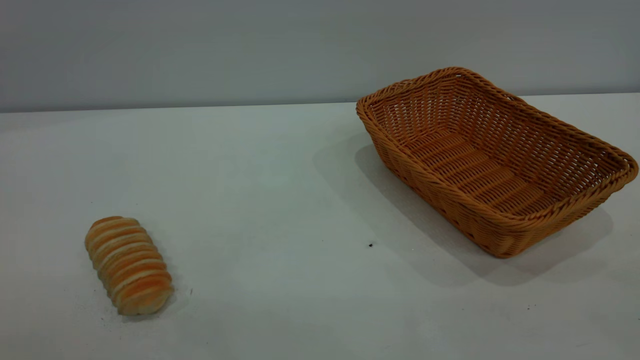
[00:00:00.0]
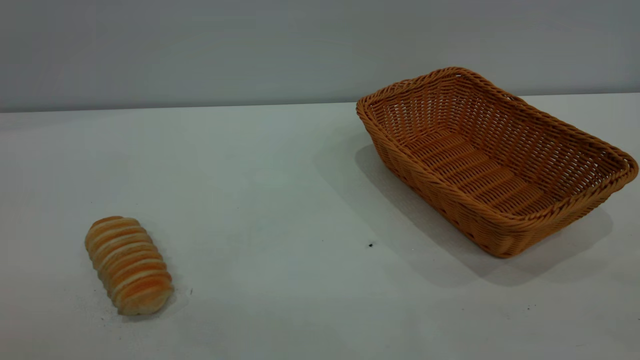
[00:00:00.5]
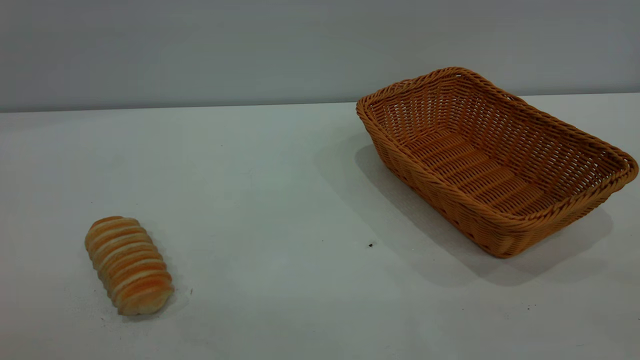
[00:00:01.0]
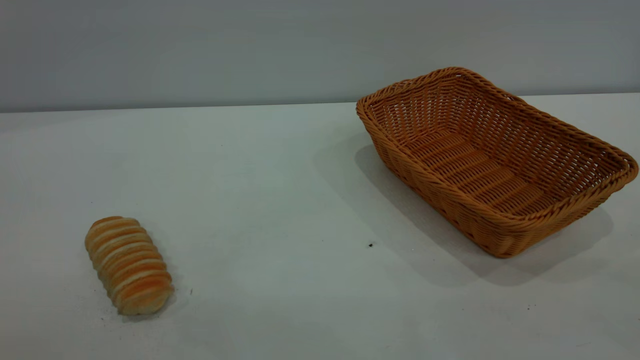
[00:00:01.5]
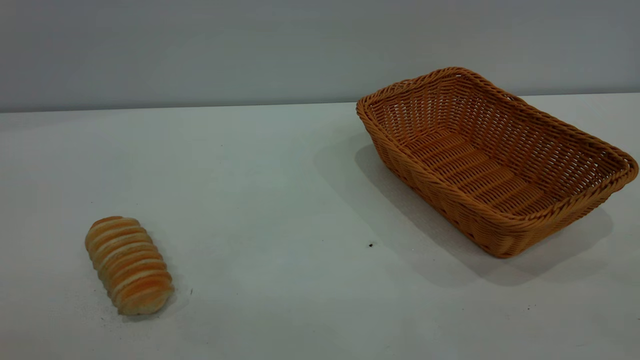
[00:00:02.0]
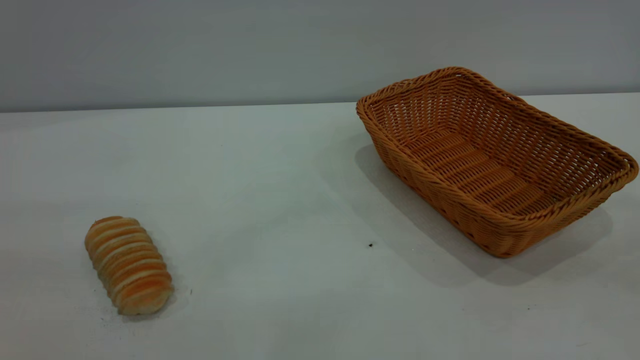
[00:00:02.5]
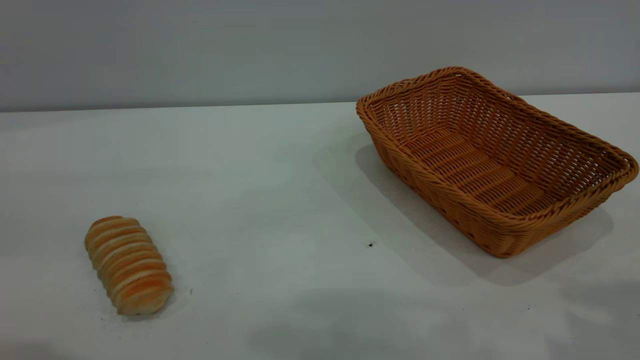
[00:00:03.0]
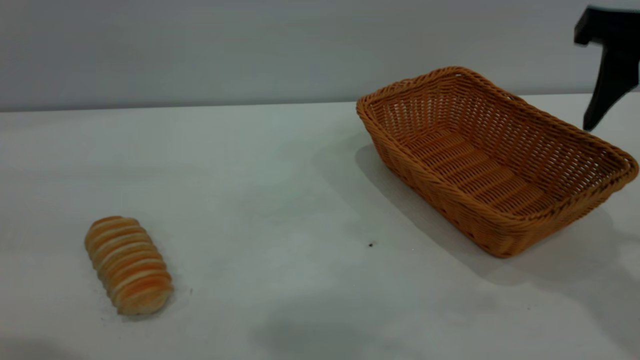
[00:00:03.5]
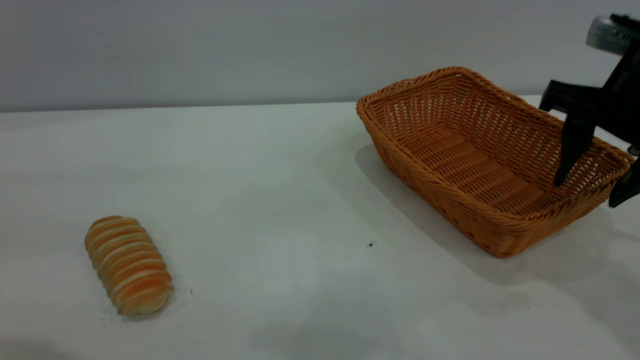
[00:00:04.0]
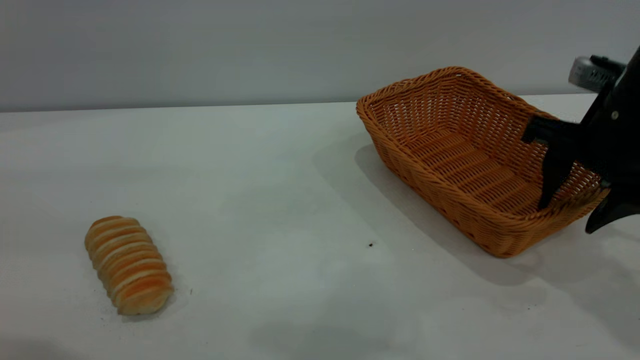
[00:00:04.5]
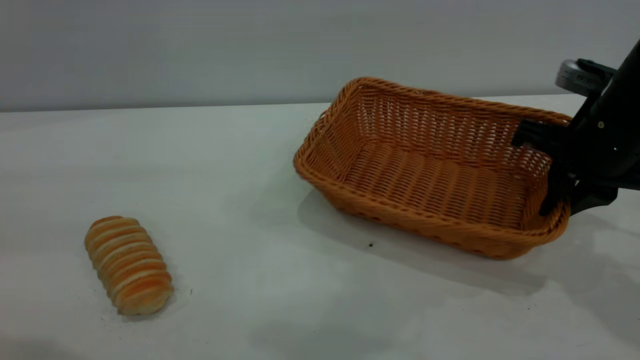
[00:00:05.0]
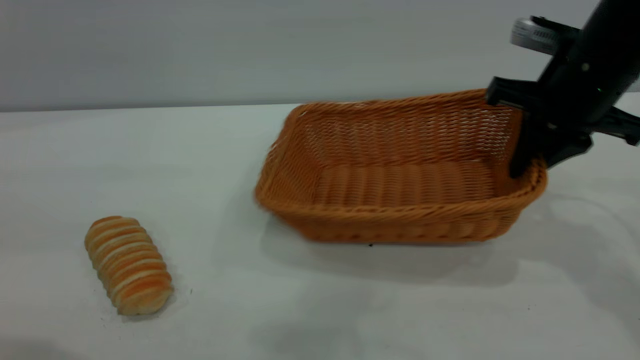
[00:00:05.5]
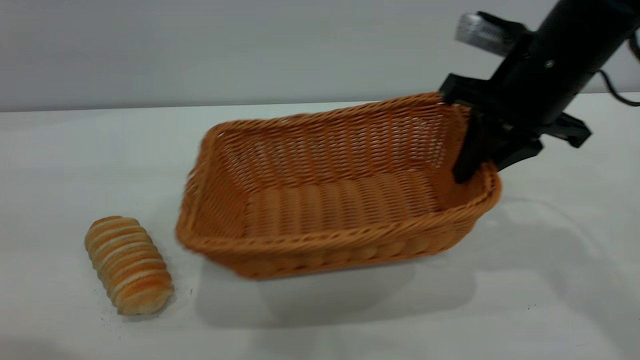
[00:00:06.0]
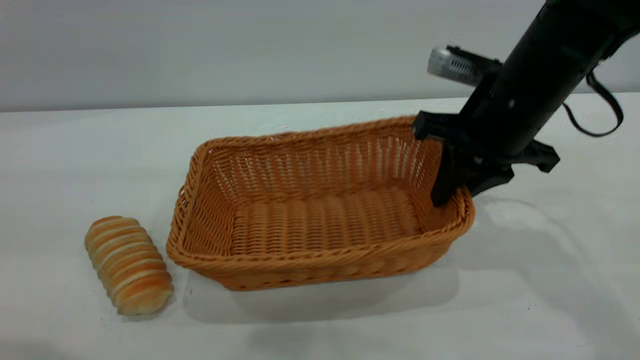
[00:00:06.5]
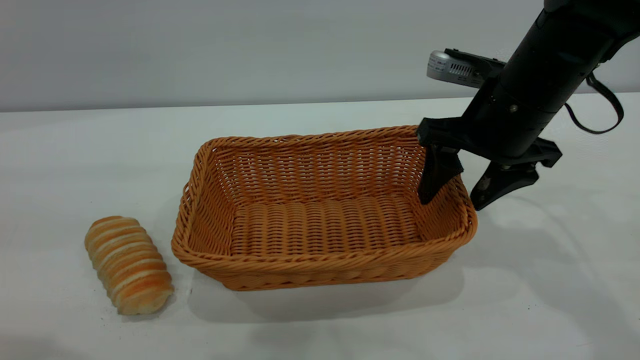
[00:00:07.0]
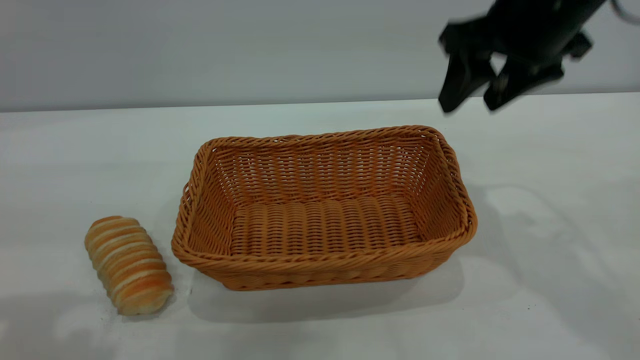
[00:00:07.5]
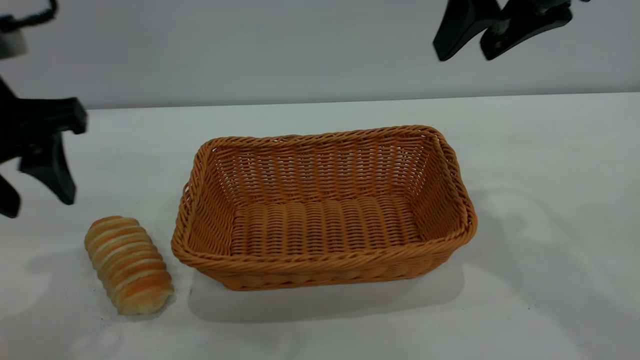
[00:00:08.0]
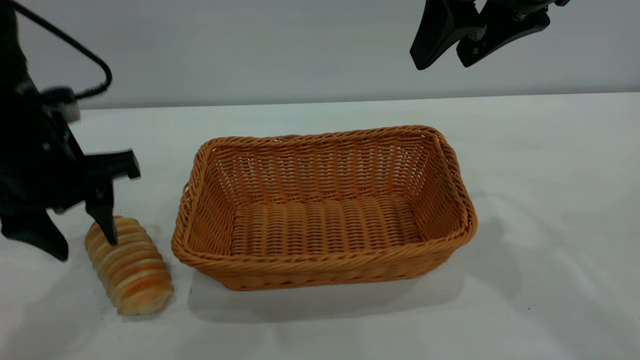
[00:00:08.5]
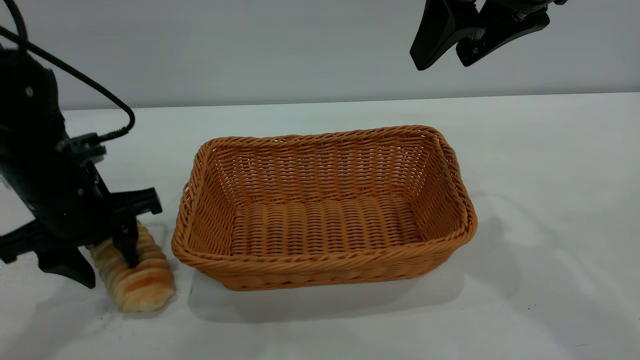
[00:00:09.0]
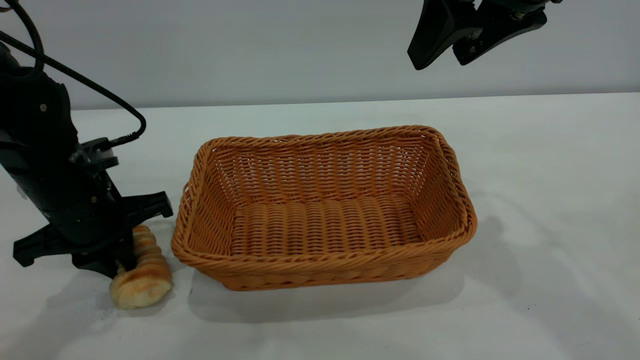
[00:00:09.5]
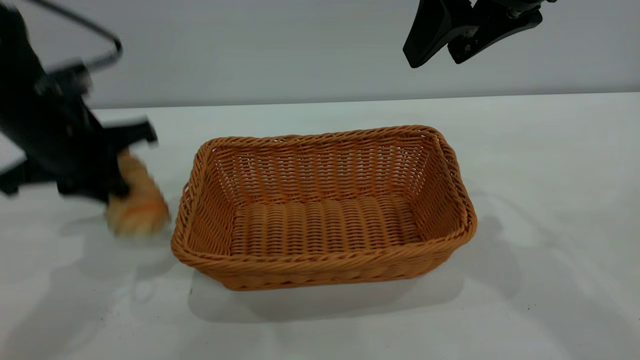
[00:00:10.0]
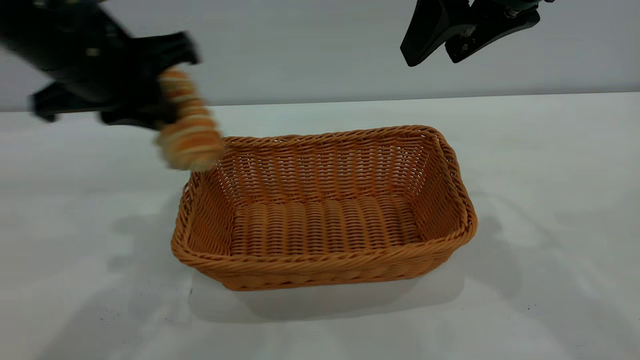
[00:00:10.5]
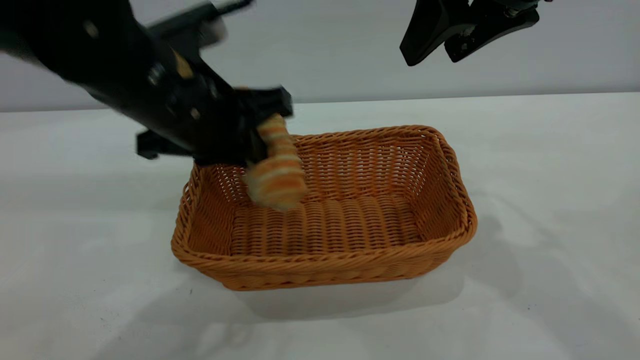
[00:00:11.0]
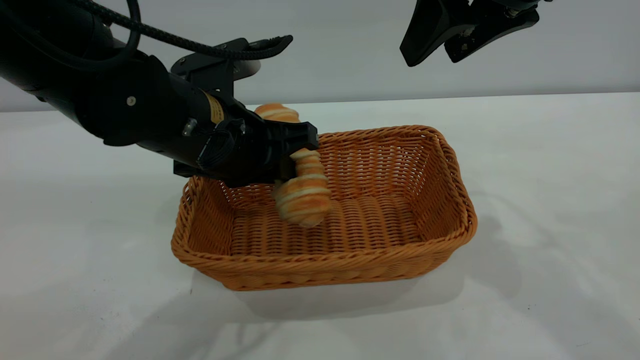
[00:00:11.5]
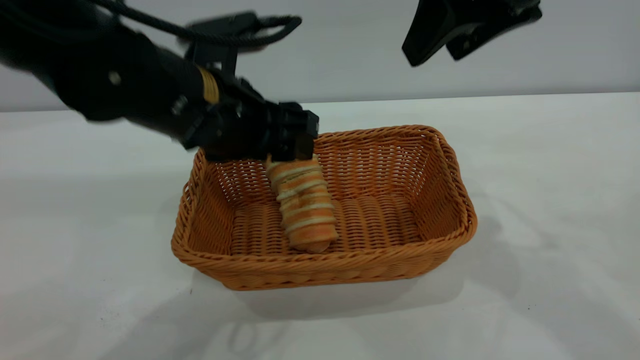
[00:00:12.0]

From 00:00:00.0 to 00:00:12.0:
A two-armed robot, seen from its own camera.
Task of the whole recording: One hand grasps the yellow basket and places it in the middle of the table, while the other hand picks up the long bread and puts it into the yellow basket.
Step, from 00:00:00.0 to 00:00:07.0: Move the basket to the center of view.
From 00:00:02.0 to 00:00:04.0: The right gripper moves forward, about 35 cm.
From 00:00:04.0 to 00:00:06.0: The right gripper goes roughly 5 cm to the left, and closes.
From 00:00:06.0 to 00:00:08.0: The right gripper is displaced upward by approximately 10 cm, and opens. The left gripper heads forward and downward, covering about 15 cm.
From 00:00:08.0 to 00:00:10.0: The left gripper shifts approximately 5 cm forward, goes downward and returns, about 15 cm each way, and closes up.
From 00:00:10.0 to 00:00:12.0: The left gripper moves to the right, some 15 cm, and opens its fingers.

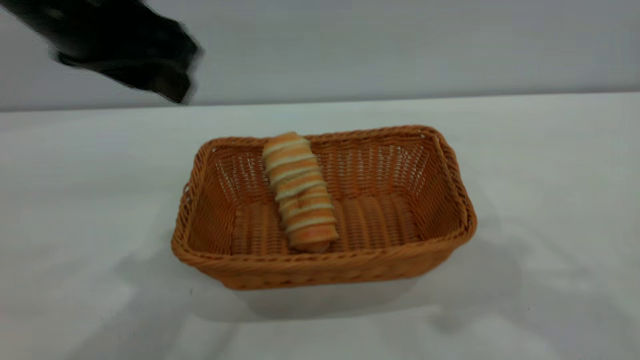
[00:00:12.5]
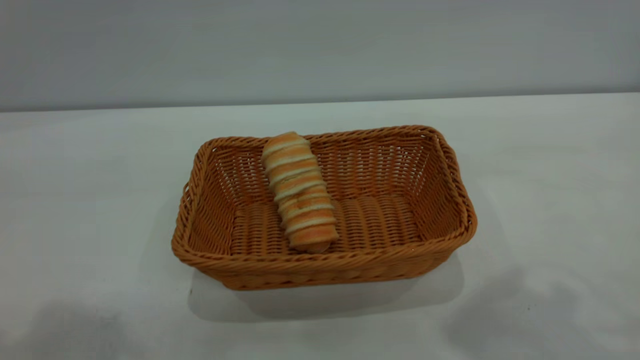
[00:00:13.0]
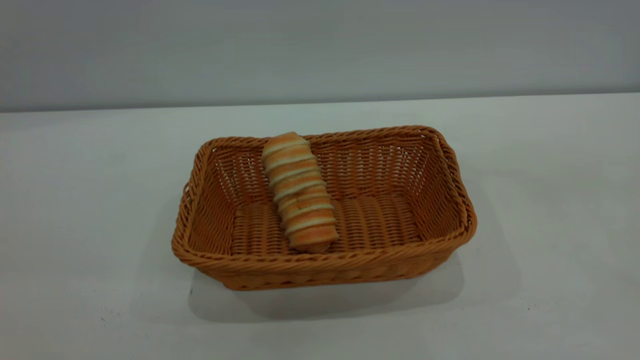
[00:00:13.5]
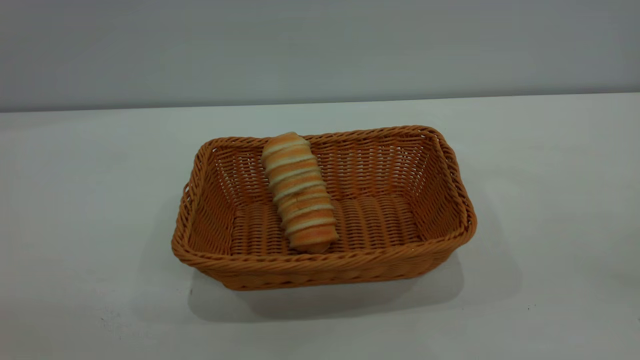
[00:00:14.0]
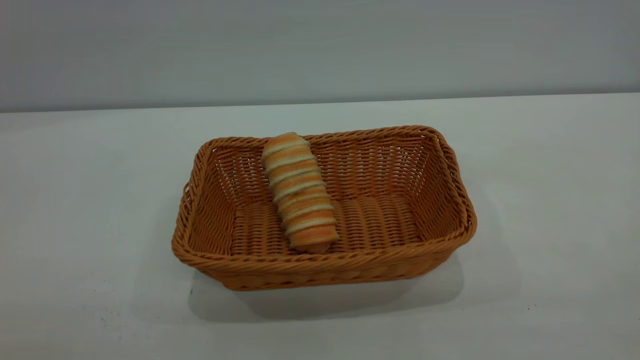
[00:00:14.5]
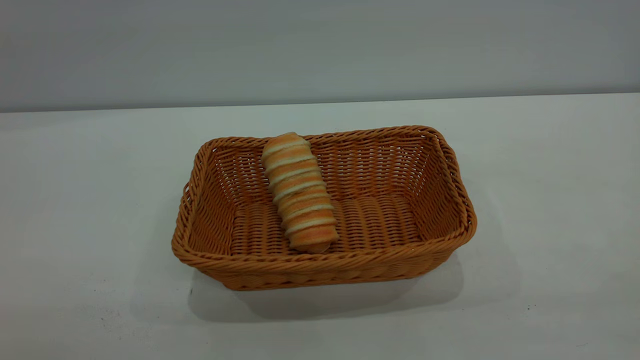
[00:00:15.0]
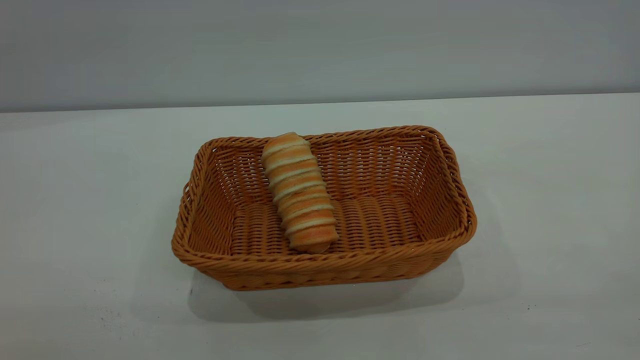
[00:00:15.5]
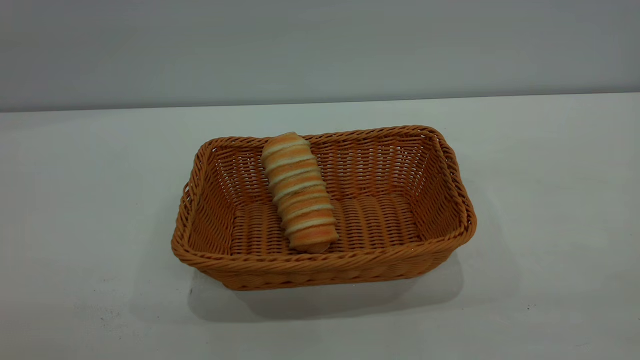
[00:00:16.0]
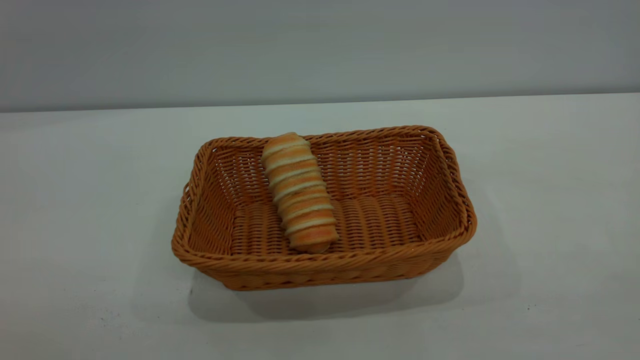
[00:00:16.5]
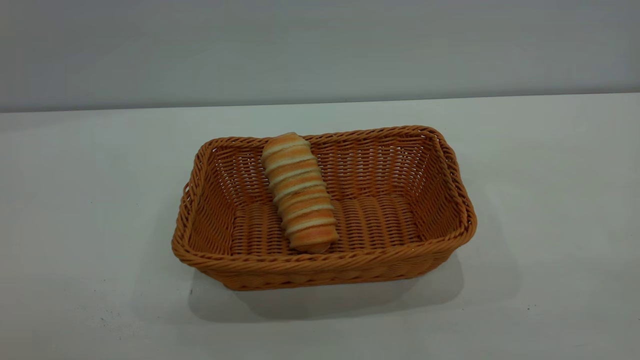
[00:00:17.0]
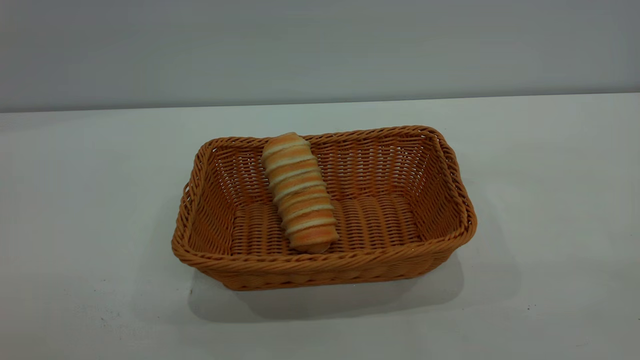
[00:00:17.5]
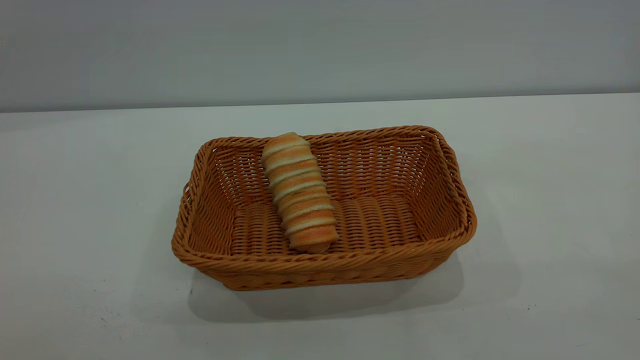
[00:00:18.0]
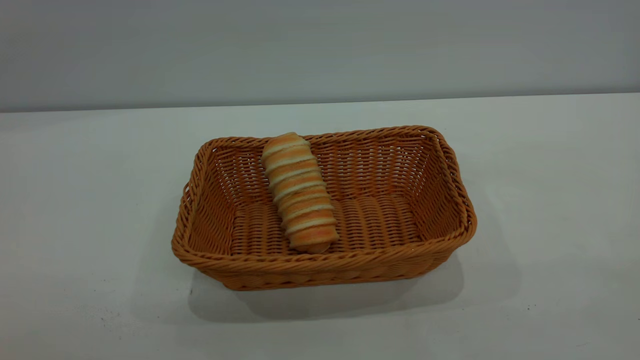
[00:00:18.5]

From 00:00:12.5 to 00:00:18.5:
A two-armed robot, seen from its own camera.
Task of the whole recording: One hand grasps the yellow basket and places it in the middle of the table, while the other hand picks up the long bread and puts it into the yellow basket.
From 00:00:12.5 to 00:00:14.5: The left gripper moves backward and to the left, about 30 cm.
